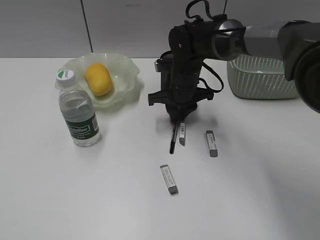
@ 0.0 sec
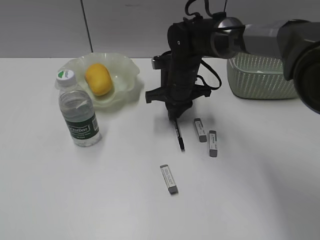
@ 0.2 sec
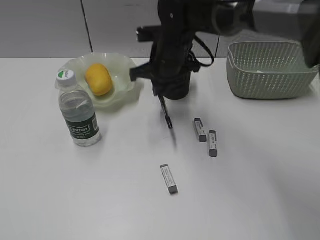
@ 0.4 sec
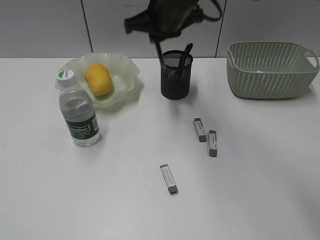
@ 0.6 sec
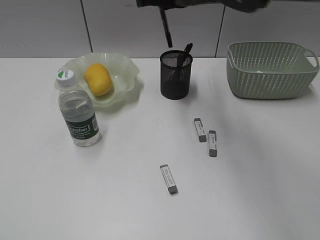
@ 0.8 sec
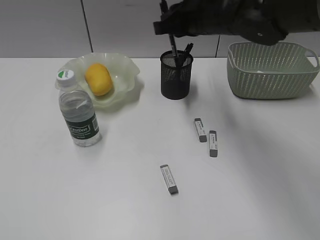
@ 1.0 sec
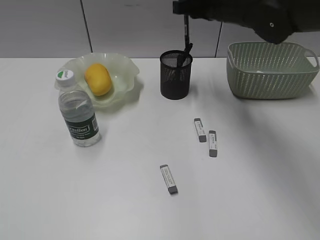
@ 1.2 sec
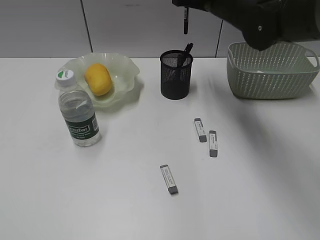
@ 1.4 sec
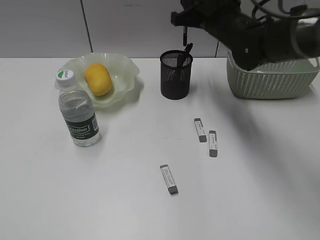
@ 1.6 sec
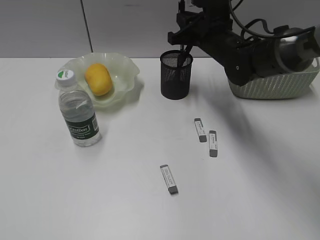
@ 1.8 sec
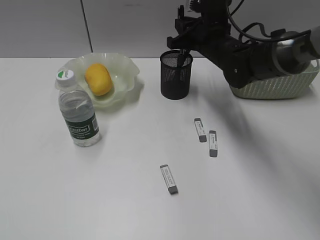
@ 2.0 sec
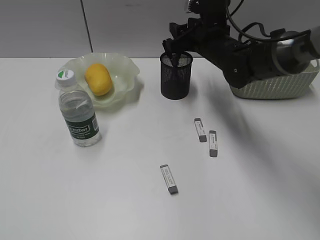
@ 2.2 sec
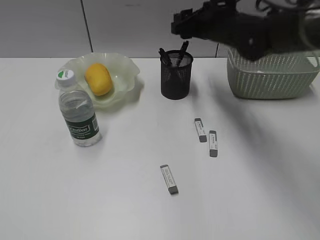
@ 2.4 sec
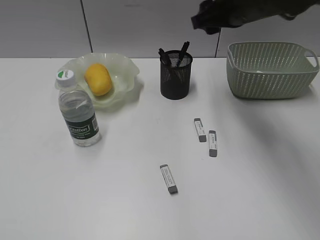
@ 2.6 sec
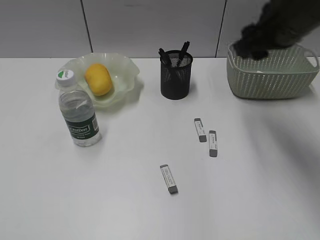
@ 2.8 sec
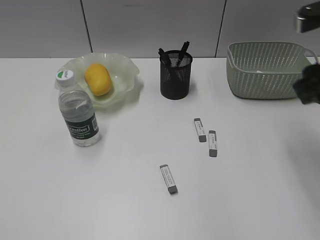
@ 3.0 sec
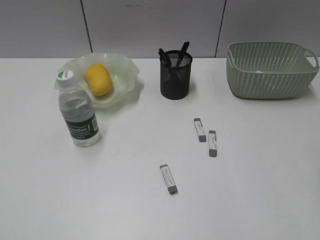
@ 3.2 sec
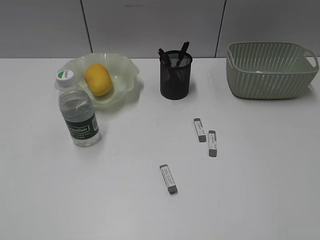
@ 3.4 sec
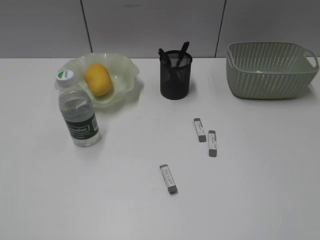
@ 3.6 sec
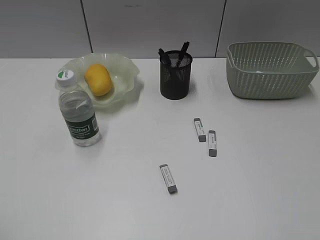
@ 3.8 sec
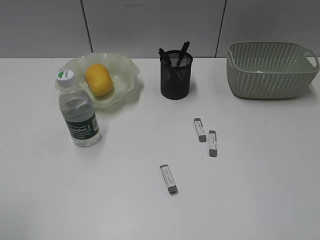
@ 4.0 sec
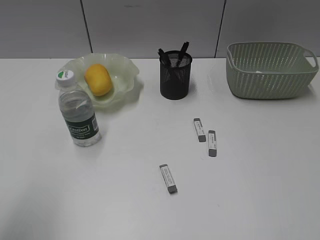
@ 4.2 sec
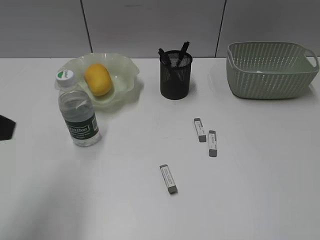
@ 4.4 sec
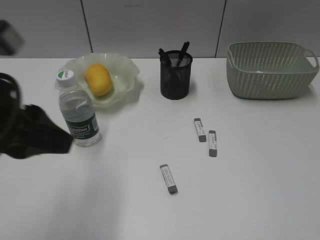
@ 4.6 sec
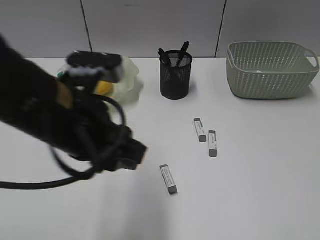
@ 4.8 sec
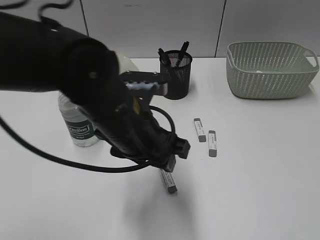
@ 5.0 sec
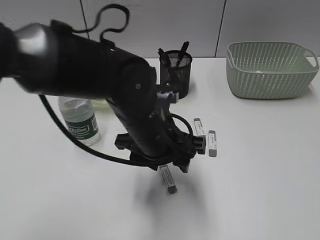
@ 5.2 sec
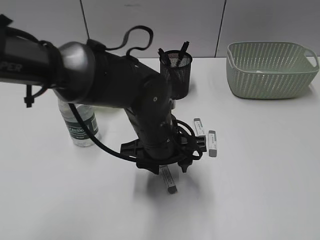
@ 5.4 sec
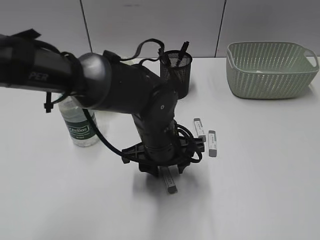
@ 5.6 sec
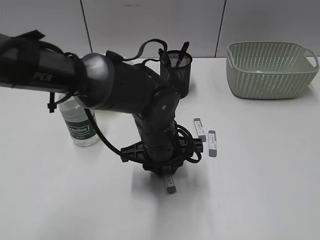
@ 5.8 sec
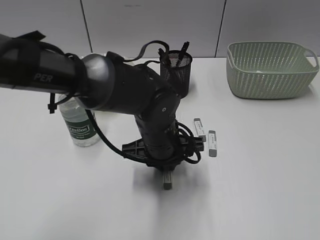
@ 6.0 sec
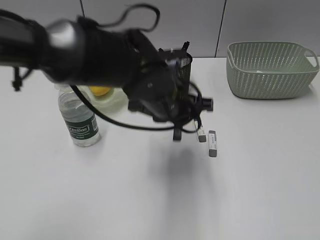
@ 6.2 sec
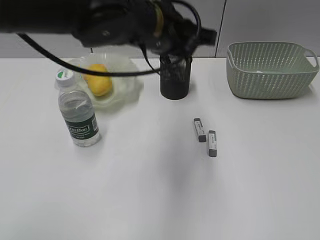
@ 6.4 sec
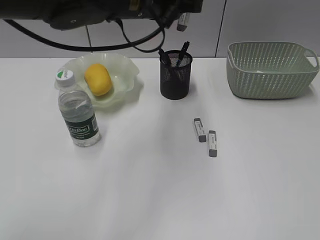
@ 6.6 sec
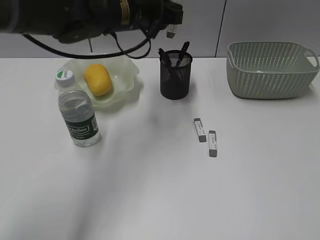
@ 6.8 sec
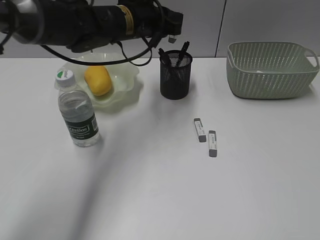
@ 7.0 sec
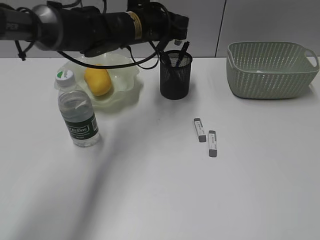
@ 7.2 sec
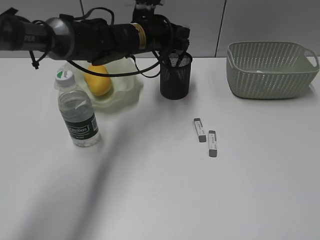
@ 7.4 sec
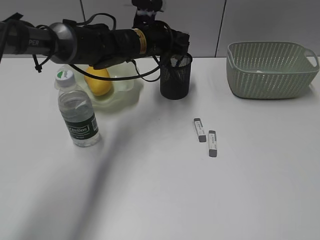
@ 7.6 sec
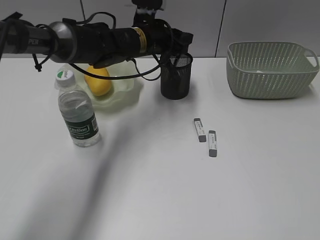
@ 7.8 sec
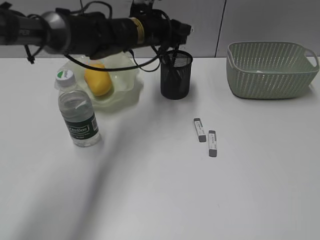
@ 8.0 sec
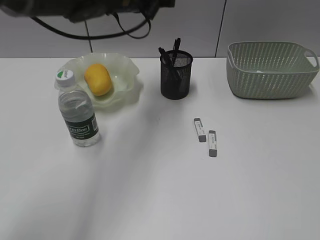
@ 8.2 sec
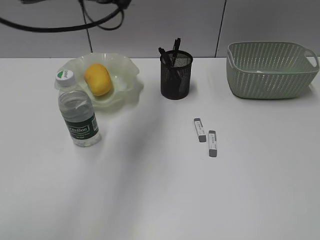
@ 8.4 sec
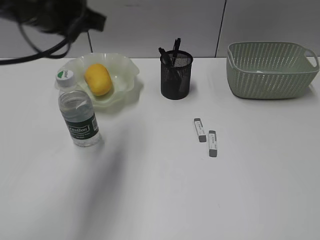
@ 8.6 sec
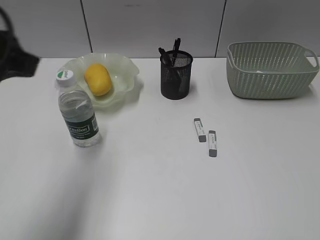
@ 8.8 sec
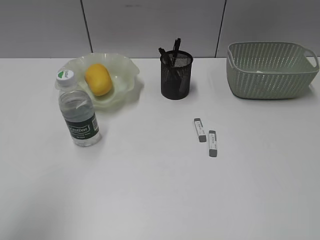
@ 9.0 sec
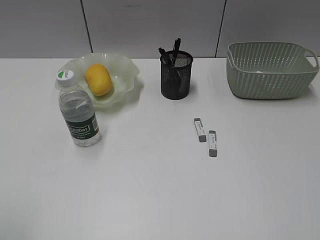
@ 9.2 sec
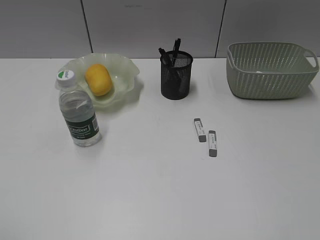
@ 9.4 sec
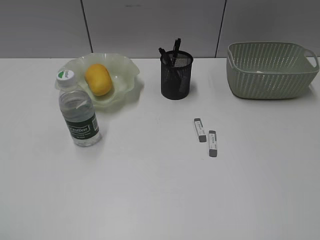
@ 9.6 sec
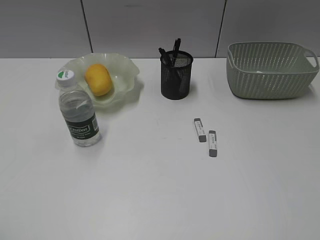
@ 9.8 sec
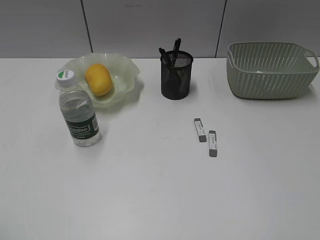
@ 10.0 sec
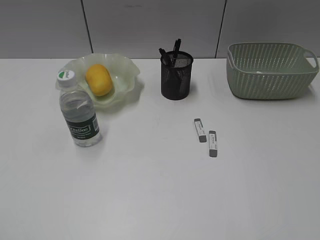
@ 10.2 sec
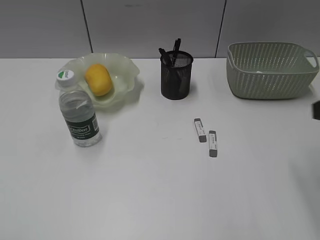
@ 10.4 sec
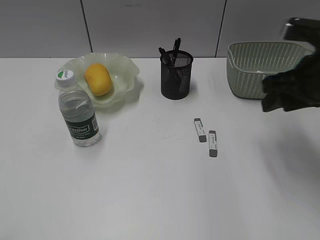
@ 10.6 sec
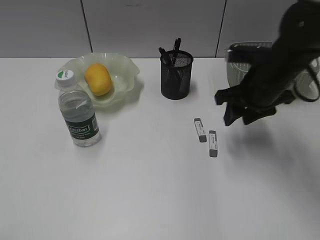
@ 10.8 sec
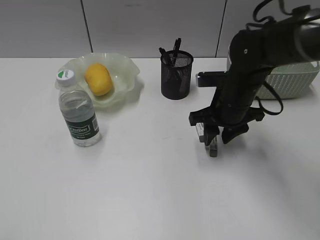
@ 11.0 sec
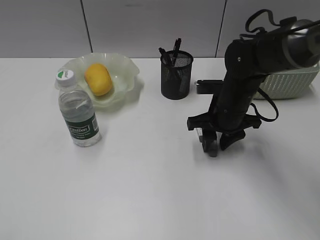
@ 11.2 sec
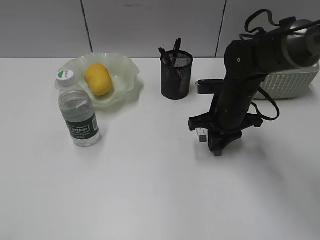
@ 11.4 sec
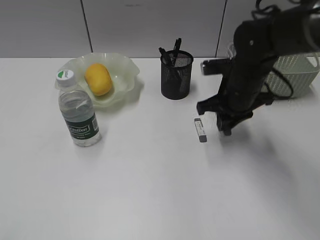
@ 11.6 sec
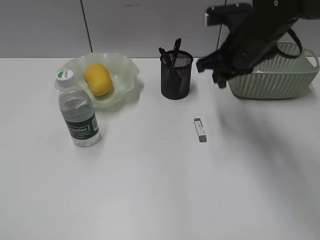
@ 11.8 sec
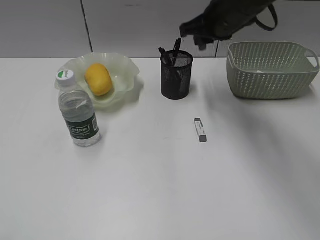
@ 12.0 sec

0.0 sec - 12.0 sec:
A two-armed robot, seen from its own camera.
Step, 0.2 sec - 2.4 sec: Place the black pen in pen holder with right gripper.
Step, 2.6 sec - 5.8 sec: Grasp the eraser with left gripper.
Step, 6.0 sec - 7.8 sec: Place the eraser in pen holder with left gripper.
Step, 8.0 sec - 11.4 sec: Grasp the eraser with right gripper.
0.0 sec - 1.6 sec: The right gripper travels upward and to the right by some 15 cm.
1.6 sec - 3.0 sec: The right gripper shifts roughly 20 cm backward and to the right, and opens.
3.0 sec - 4.4 sec: The right gripper is displaced backward by some 25 cm; the left gripper travels forward and to the right by about 20 cm.
4.4 sec - 6.0 sec: The left gripper shifts about 35 cm to the right, downward and forward.
6.0 sec - 7.6 sec: The left gripper heads forward, covering about 20 cm.
7.6 sec - 9.0 sec: The left gripper goes some 50 cm backward, to the left and upward.
9.0 sec - 10.4 sec: The right gripper is displaced forward by roughly 20 cm.
10.4 sec - 12.0 sec: The right gripper shifts about 25 cm forward and to the left, and closes its fingers.

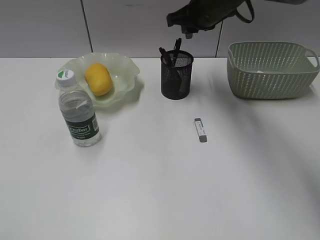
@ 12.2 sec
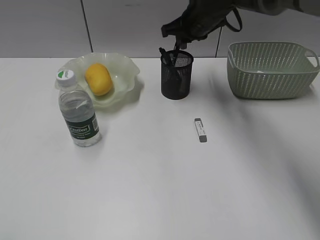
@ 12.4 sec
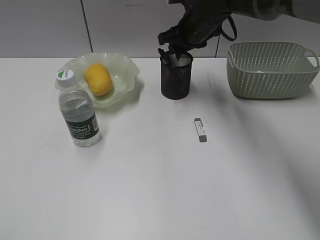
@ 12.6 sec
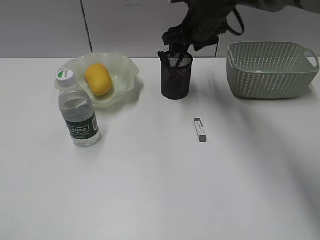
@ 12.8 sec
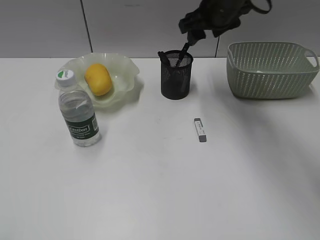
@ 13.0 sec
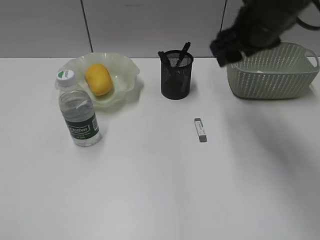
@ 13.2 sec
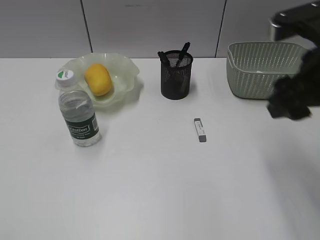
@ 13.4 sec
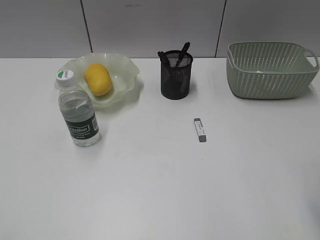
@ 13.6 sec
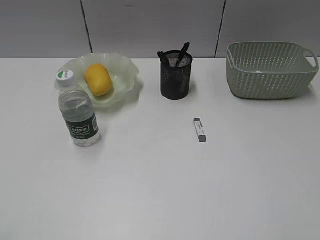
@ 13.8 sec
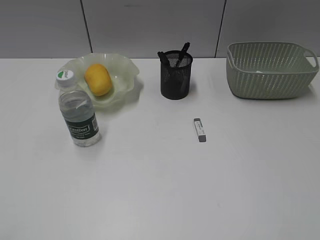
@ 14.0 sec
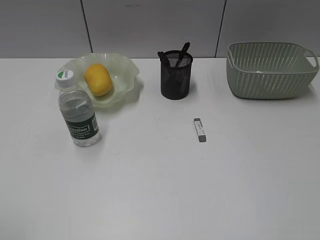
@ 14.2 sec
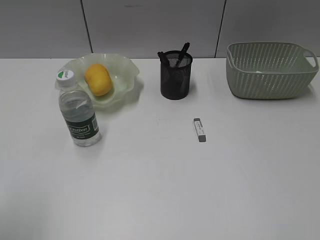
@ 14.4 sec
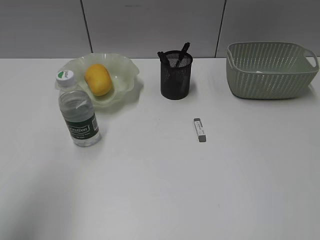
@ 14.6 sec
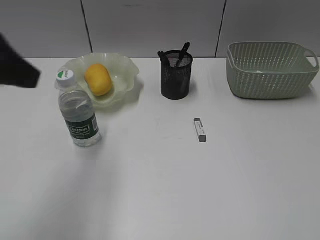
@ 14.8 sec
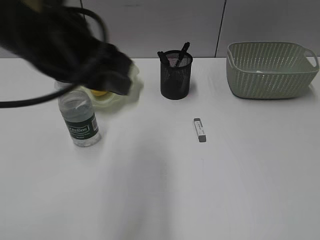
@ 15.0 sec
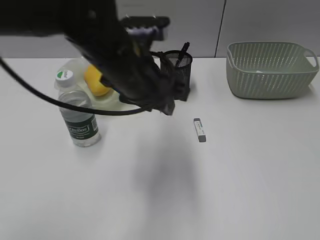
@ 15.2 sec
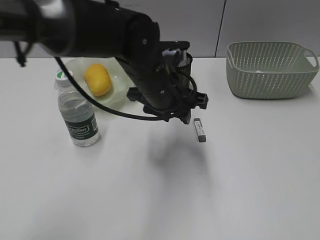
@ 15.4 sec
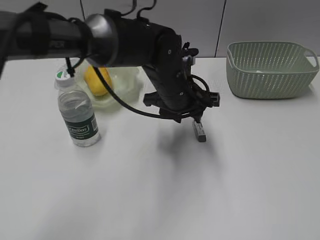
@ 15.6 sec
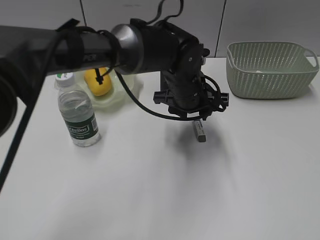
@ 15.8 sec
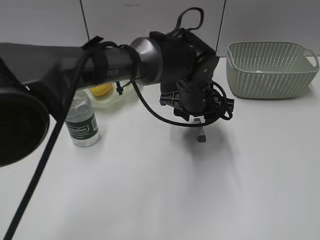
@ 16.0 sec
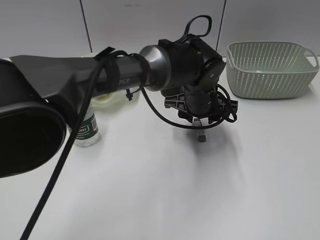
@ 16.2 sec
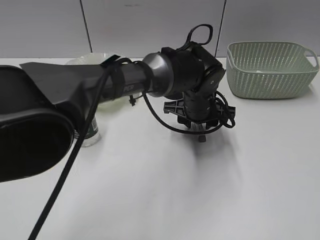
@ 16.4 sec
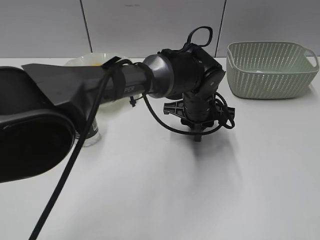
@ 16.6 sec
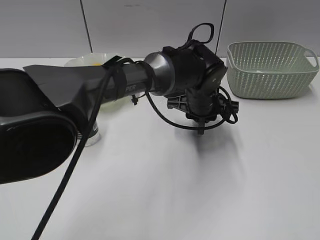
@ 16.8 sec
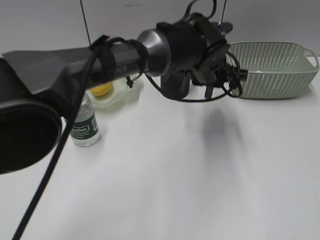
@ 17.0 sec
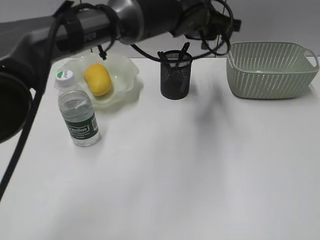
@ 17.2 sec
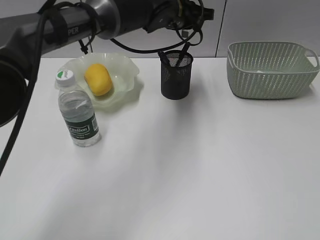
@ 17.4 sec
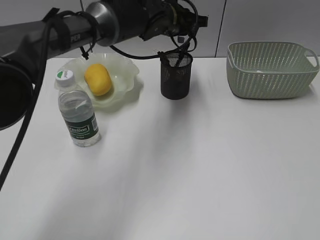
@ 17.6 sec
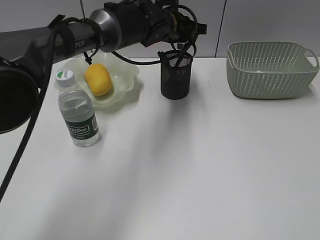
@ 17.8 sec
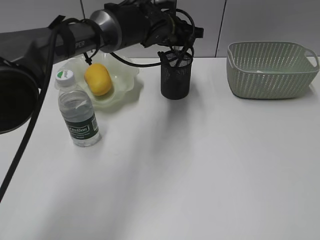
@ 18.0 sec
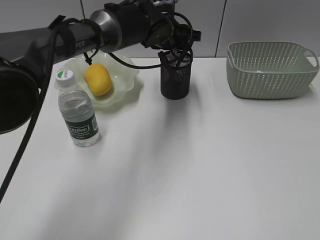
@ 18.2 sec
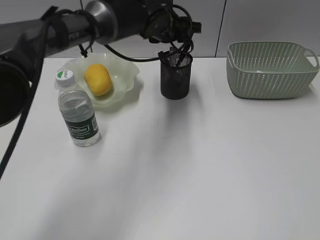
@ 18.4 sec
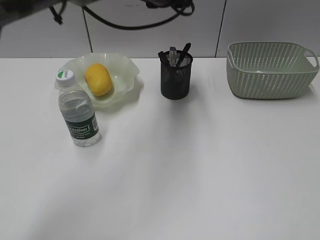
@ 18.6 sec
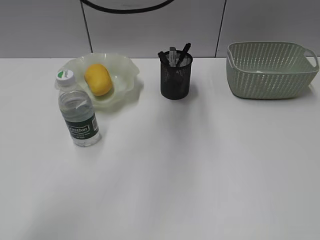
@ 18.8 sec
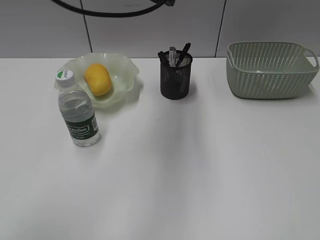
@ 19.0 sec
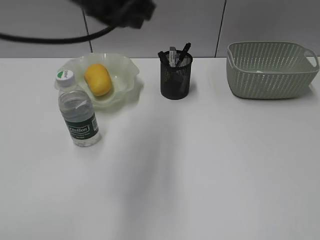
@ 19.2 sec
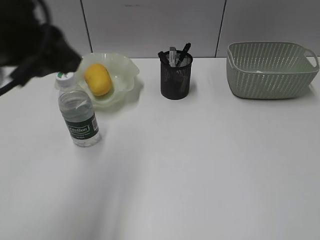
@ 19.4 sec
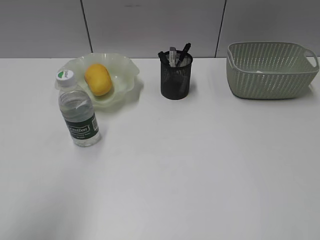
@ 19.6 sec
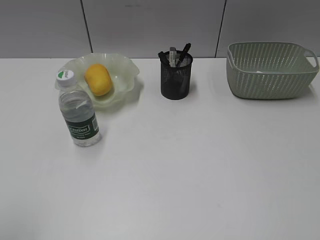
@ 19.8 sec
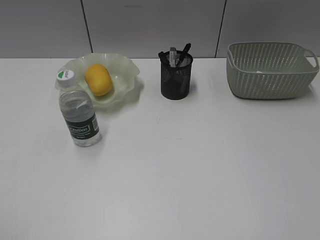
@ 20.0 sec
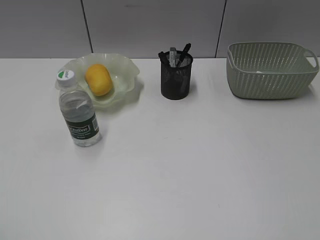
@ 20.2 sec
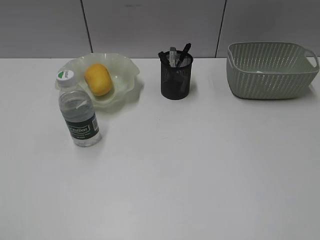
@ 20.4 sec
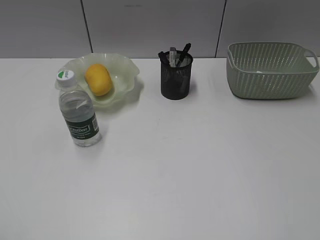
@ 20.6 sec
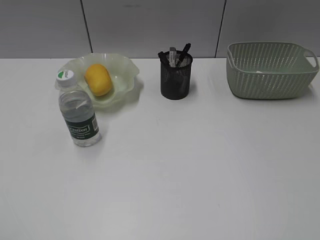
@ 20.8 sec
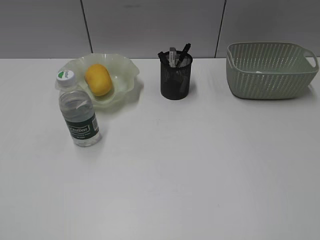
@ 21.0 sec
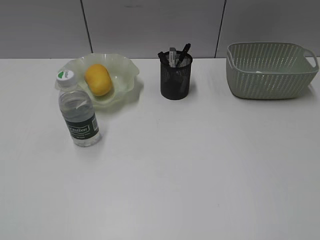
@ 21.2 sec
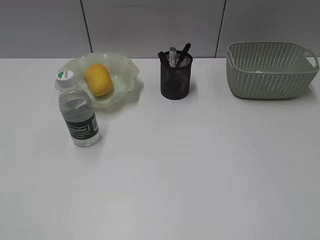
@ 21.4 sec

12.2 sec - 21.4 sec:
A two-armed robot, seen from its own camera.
Step, 13.0 sec - 16.6 sec: Grasp the eraser with left gripper.
Step, 16.8 sec - 18.2 sec: Place the eraser in pen holder with left gripper.
12.2 sec - 13.8 sec: The right gripper goes approximately 40 cm backward and to the right, and opens.
13.8 sec - 15.2 sec: The right gripper is displaced backward by about 10 cm, while the left gripper heads forward and to the right, covering roughly 40 cm.
15.2 sec - 16.8 sec: The left gripper moves to the right, downward and forward, roughly 20 cm, and closes.
16.8 sec - 18.4 sec: The left gripper shifts approximately 15 cm forward, upward and to the left, and opens its fingers.
18.4 sec - 19.8 sec: The left gripper shifts some 50 cm backward and to the left.
